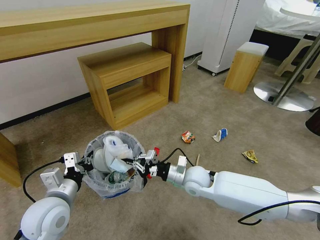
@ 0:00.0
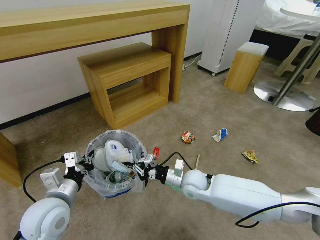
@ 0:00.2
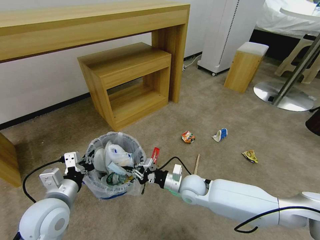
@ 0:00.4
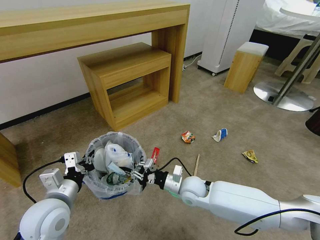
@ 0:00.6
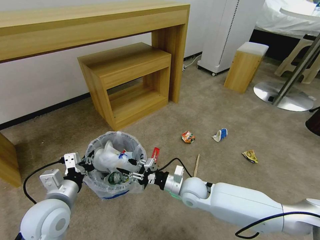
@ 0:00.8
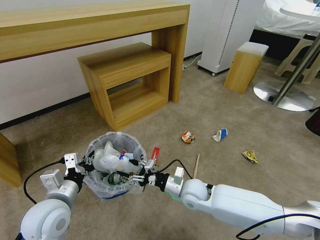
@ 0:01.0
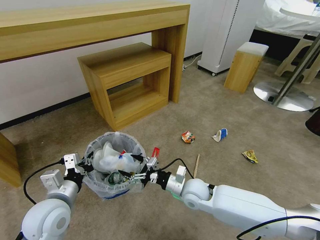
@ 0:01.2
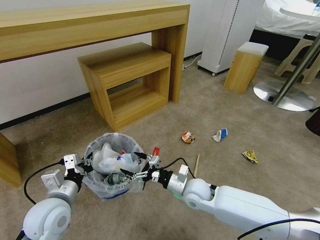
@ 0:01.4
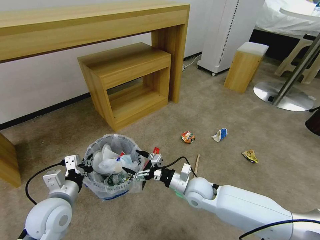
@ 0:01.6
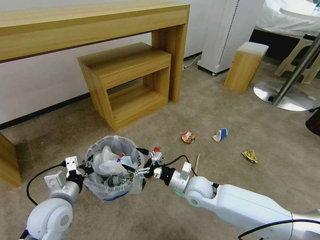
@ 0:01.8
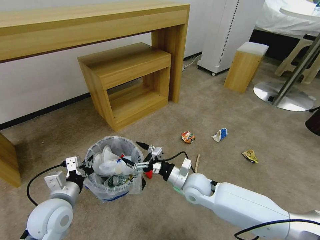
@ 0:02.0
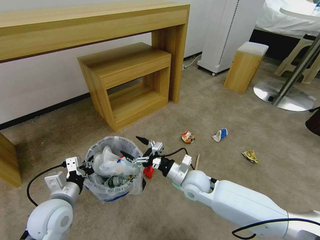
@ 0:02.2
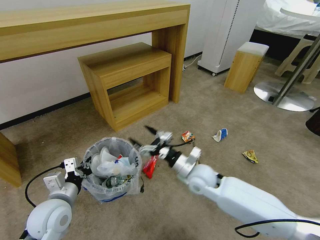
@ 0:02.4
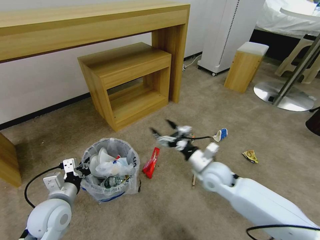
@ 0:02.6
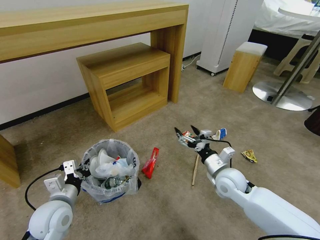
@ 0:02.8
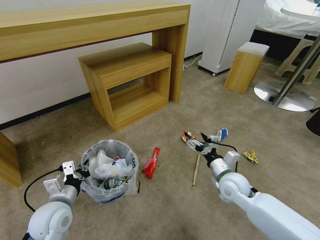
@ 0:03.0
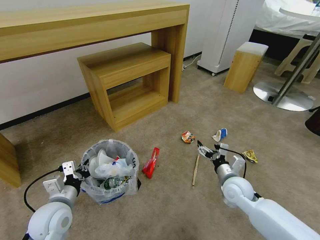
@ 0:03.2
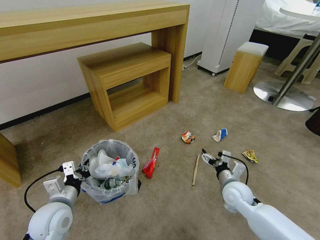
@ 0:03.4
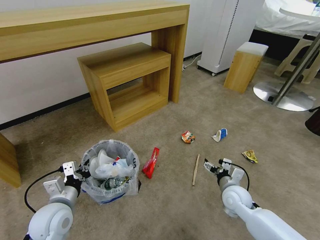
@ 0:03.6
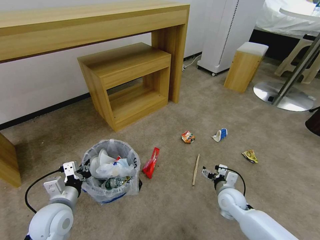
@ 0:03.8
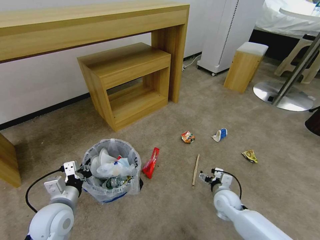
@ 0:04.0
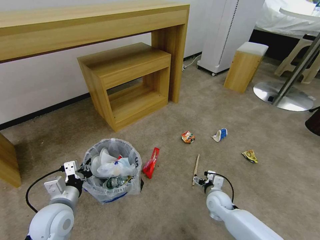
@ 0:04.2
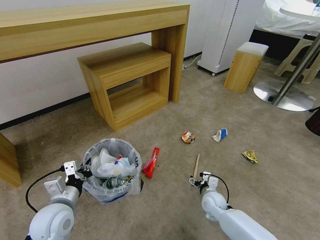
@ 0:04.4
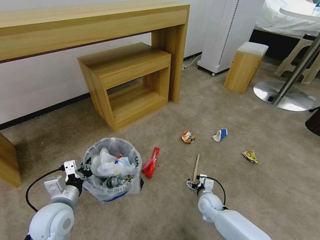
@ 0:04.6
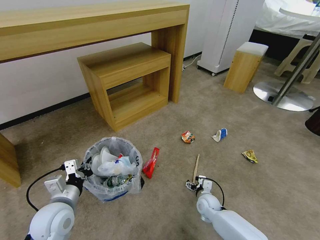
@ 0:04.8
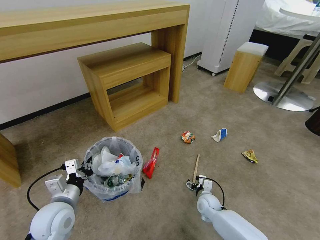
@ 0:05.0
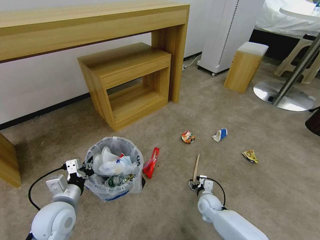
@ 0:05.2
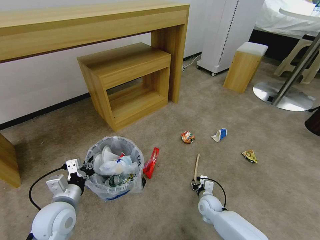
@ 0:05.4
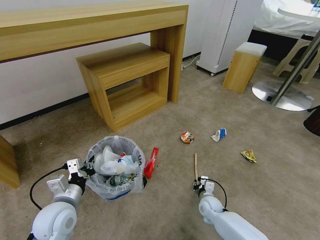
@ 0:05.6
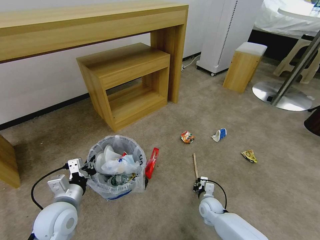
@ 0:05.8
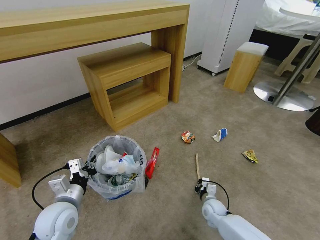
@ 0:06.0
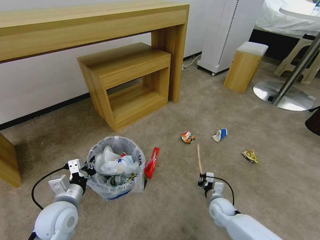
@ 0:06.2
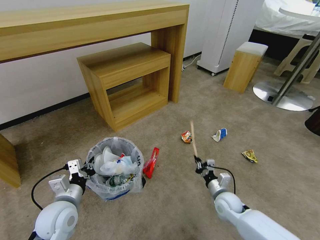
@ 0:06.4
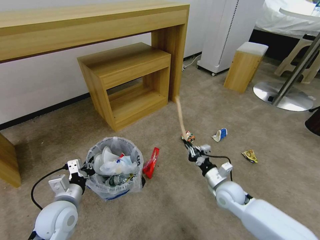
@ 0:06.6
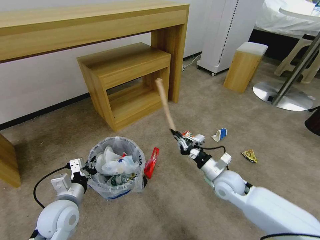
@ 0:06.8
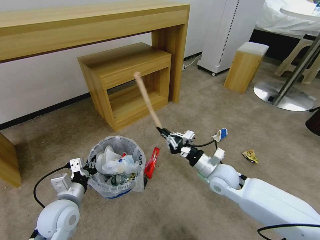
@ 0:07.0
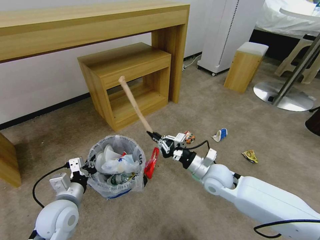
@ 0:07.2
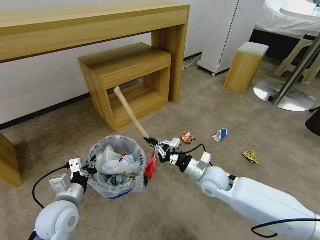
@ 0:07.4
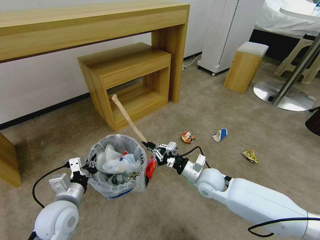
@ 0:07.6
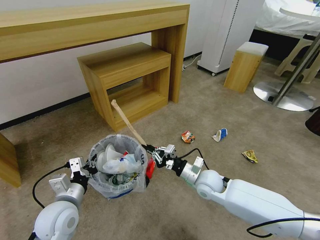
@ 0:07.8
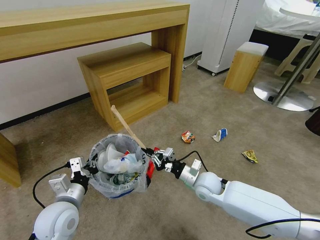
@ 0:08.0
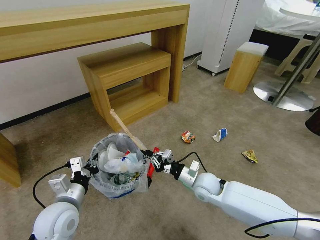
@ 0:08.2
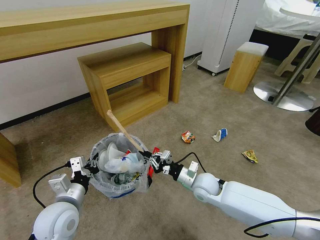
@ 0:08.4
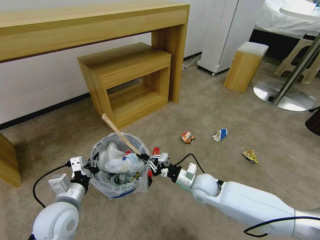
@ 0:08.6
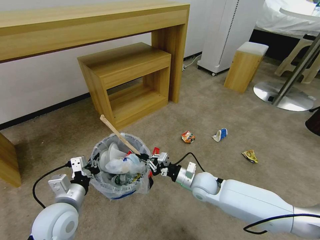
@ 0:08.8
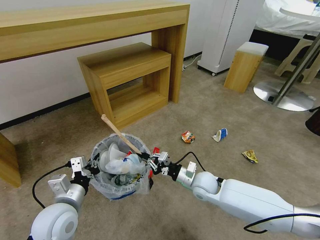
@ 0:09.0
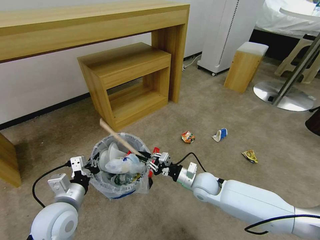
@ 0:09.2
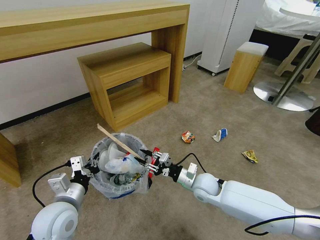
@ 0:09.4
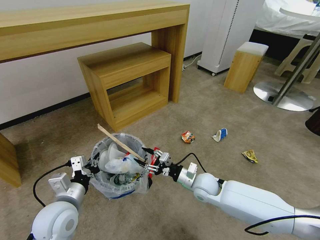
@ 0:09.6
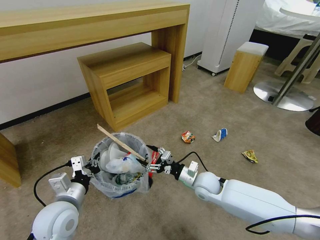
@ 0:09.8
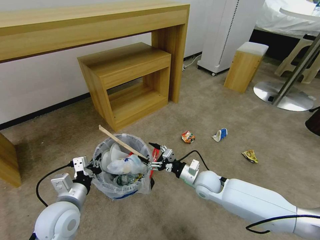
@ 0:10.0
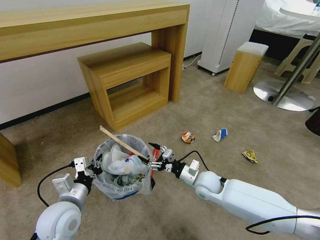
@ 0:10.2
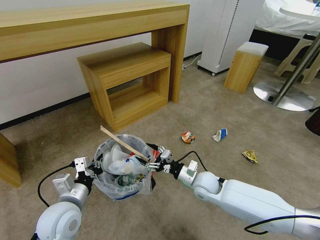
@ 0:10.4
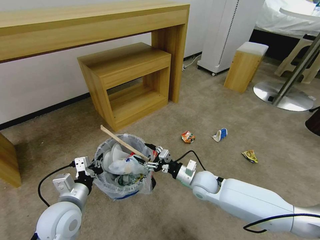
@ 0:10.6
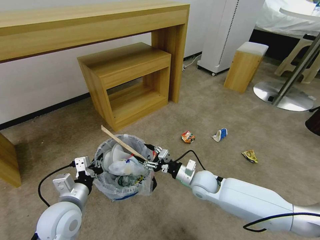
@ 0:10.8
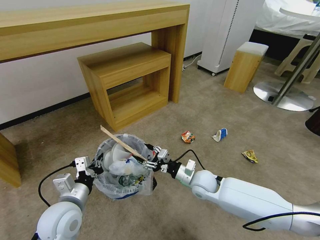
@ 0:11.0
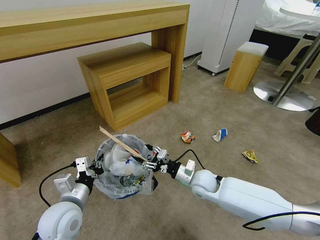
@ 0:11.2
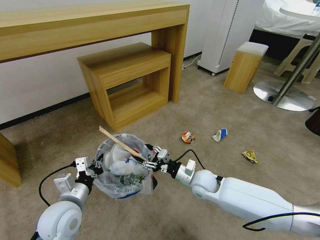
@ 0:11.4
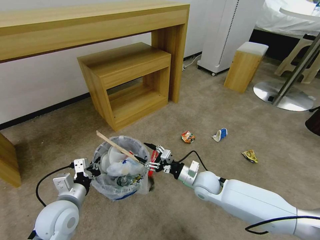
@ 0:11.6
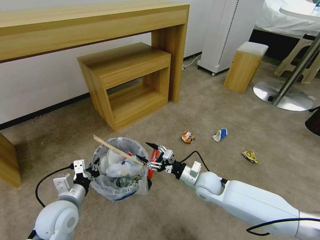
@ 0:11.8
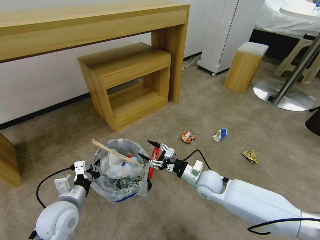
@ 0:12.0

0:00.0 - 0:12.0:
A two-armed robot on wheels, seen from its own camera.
Task of the whole recording: Pick up the trash bin and place the garbage on the floor into it.
0:00.0 - 0:01.6: The right gripper opens its fingers.
0:01.6 - 0:03.0: The right gripper goes approximately 10 cm to the right.
0:03.0 - 0:04.4: The right gripper travels downward by some 15 cm.
0:04.4 - 0:06.0: The right gripper heads downward, covering roughly 5 cm, and closes its fingers.
0:06.0 - 0:07.6: The right gripper is displaced upward by some 20 cm.
0:07.6 - 0:09.0: The grippers move only a little.
0:09.0 - 0:10.4: The right gripper opens up.
0:10.4 - 0:12.0: The grippers stay close to where they were, moving slightly.

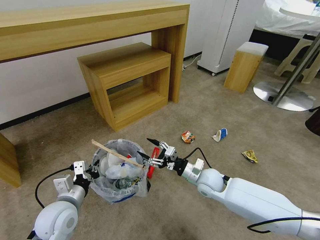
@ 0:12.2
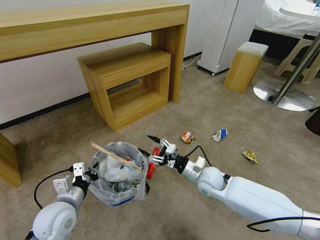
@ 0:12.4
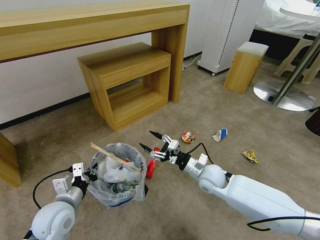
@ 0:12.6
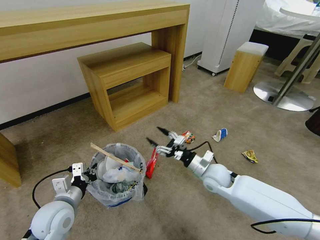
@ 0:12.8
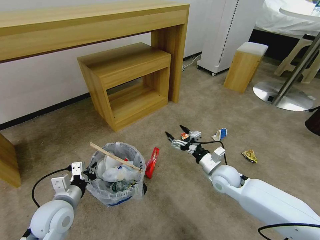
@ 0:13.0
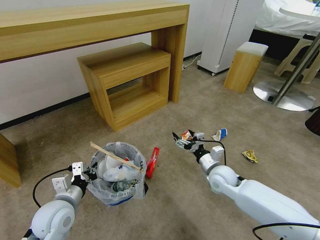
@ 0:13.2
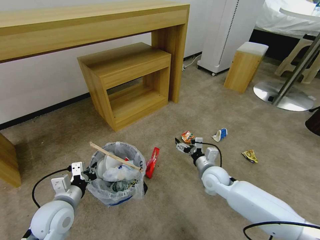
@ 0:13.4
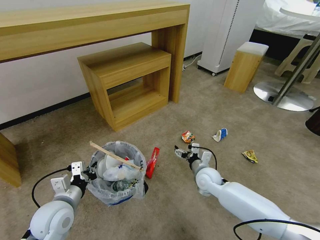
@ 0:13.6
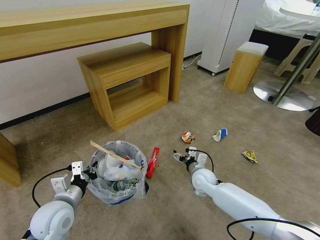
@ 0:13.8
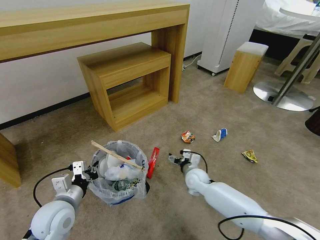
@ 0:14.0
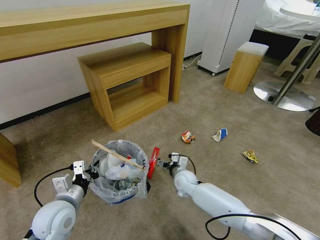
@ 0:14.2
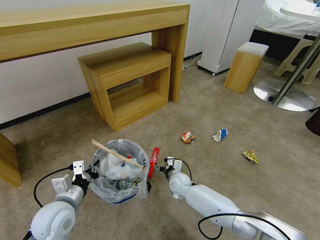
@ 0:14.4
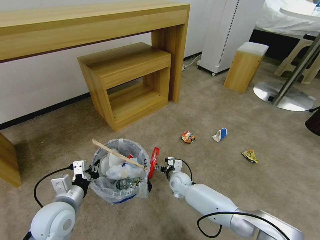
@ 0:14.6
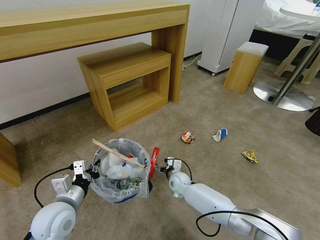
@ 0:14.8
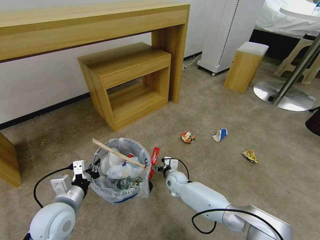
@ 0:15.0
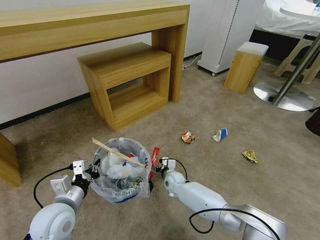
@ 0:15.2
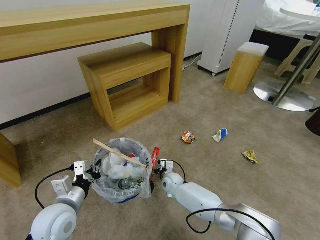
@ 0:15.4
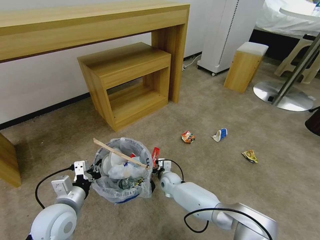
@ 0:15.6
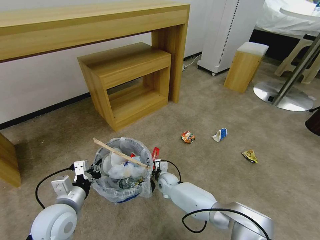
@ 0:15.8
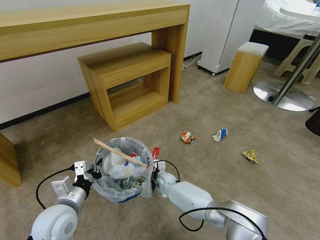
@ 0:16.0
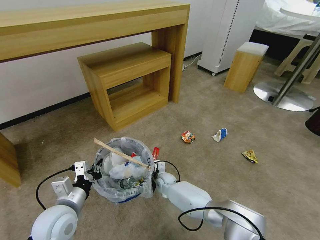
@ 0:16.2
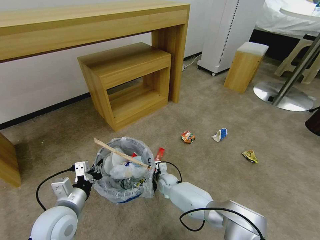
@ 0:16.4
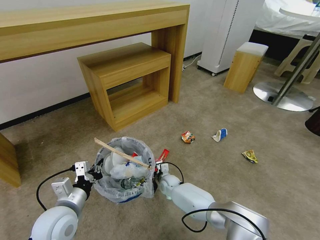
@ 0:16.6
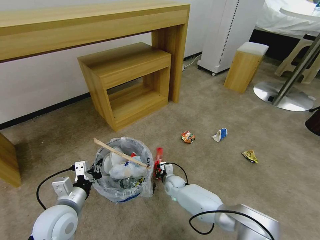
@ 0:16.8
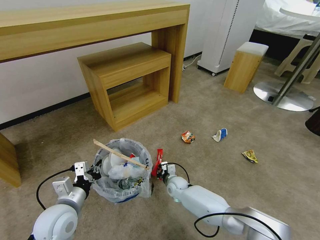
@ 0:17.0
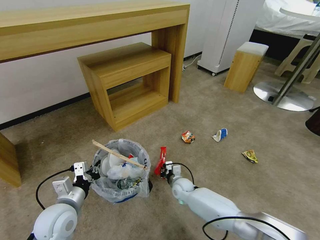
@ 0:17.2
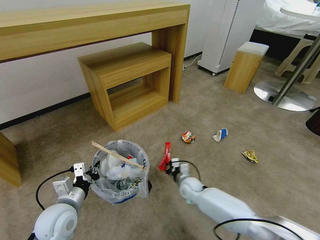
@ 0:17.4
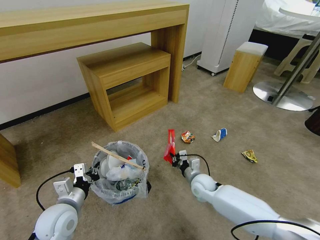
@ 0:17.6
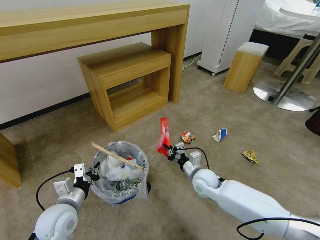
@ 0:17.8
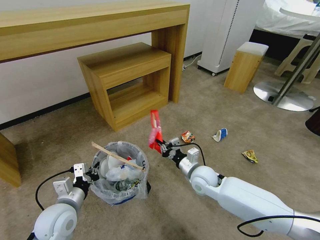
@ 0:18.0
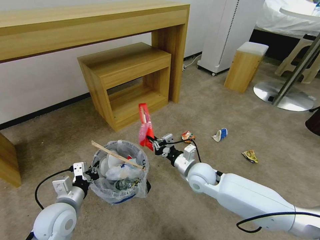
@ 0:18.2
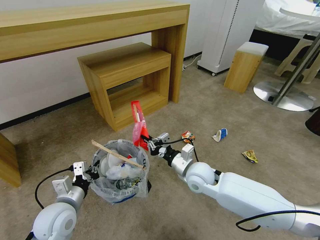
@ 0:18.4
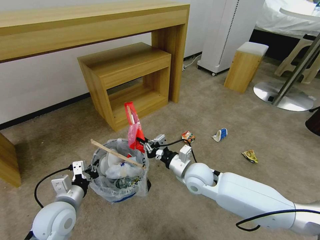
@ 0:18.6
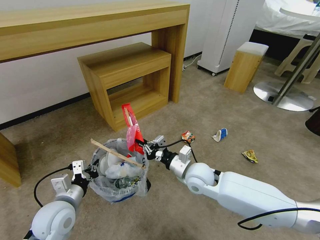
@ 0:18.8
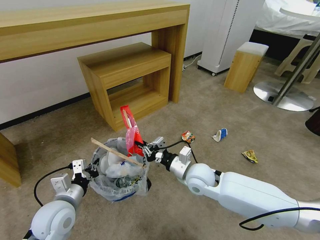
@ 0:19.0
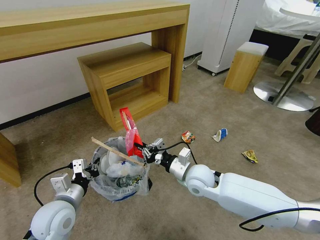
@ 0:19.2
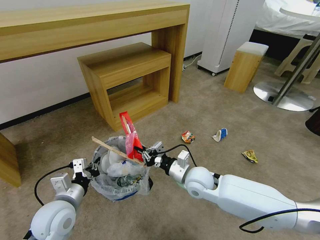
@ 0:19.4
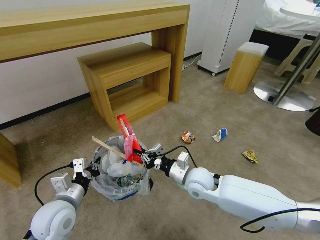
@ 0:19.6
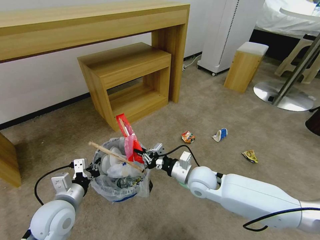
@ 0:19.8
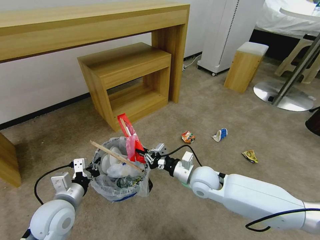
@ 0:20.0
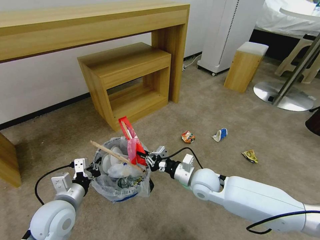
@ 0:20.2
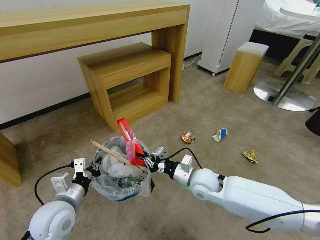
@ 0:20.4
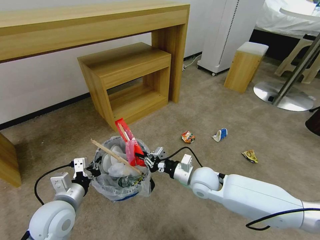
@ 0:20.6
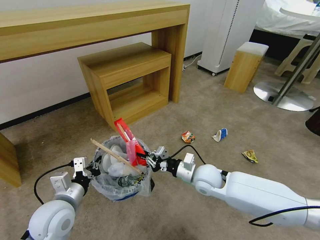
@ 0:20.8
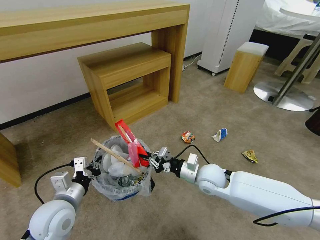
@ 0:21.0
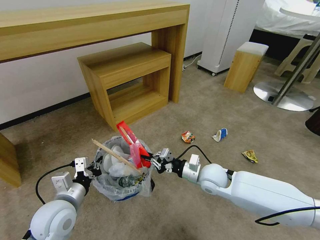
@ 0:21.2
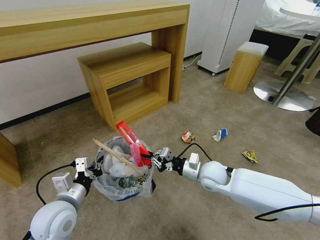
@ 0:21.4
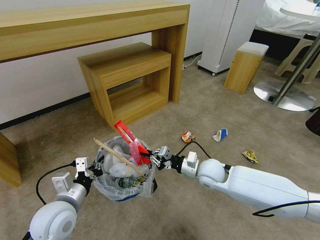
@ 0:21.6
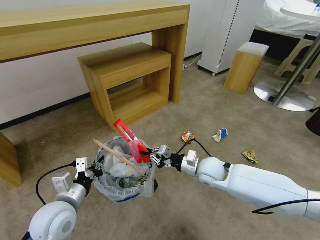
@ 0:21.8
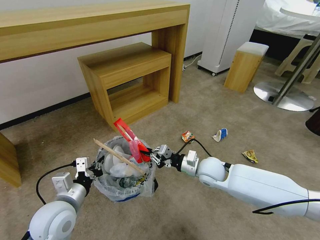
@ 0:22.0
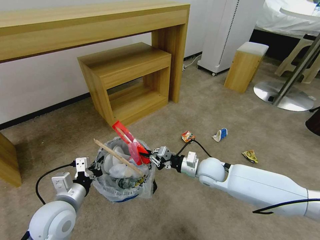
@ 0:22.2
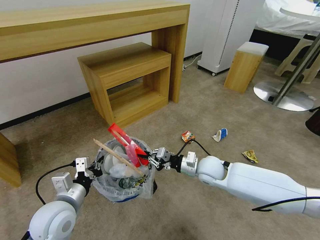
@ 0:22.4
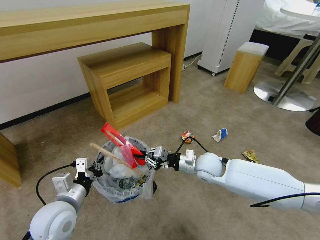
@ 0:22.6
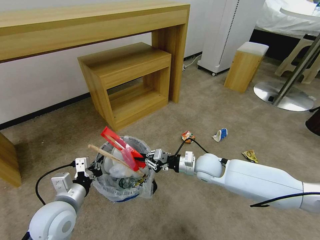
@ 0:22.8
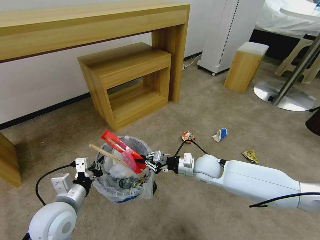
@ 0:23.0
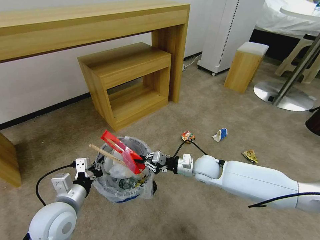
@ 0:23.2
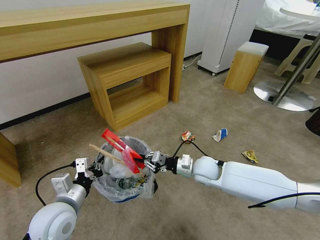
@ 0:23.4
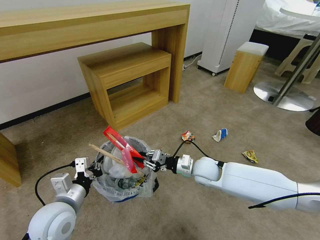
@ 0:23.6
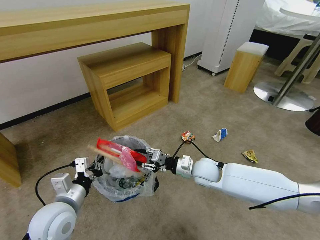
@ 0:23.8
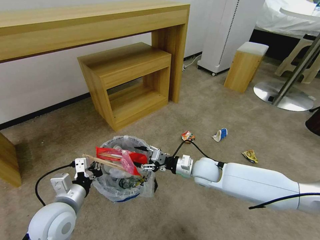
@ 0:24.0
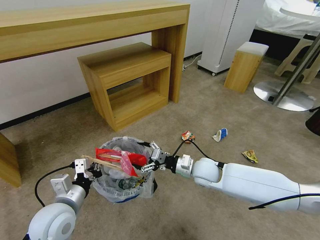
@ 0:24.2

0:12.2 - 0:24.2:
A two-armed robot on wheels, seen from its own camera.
Task of the whole recording: Pick up the trash bin and place the garbage on the floor into it.
0:12.2 - 0:13.8: The right gripper is displaced downward by about 5 cm.
0:13.8 - 0:15.2: The right gripper travels to the left and downward by some 15 cm.
0:15.2 - 0:16.6: The right gripper closes.
0:16.6 - 0:18.2: The right gripper heads upward and to the right, covering about 25 cm, and closes its fingers.
0:18.2 - 0:19.8: The grippers move only a little.
0:19.8 - 0:21.2: There are only small adjustments of the grippers.
0:21.2 - 0:22.6: The grippers move only a little.
0:22.6 - 0:24.2: The right gripper opens up.
